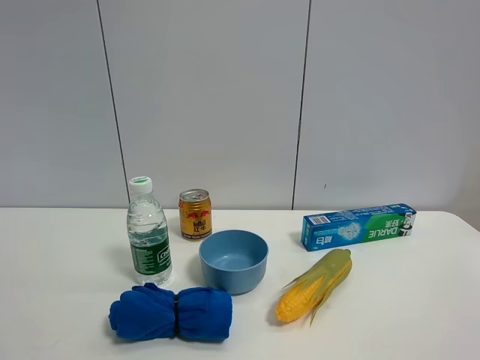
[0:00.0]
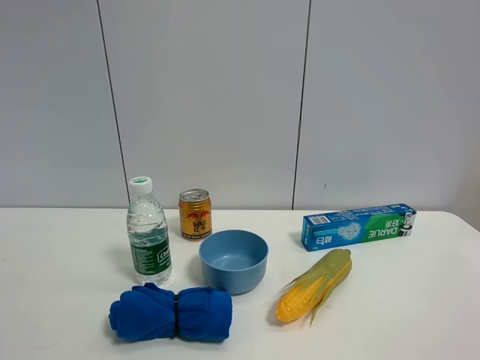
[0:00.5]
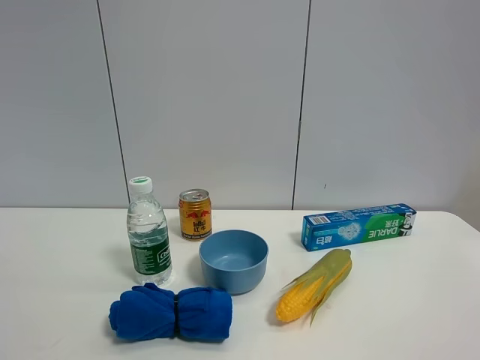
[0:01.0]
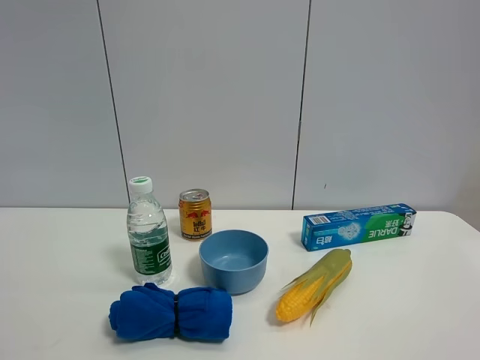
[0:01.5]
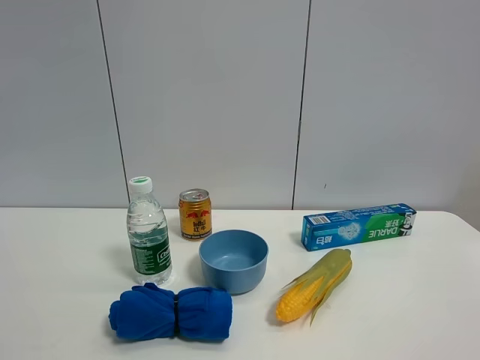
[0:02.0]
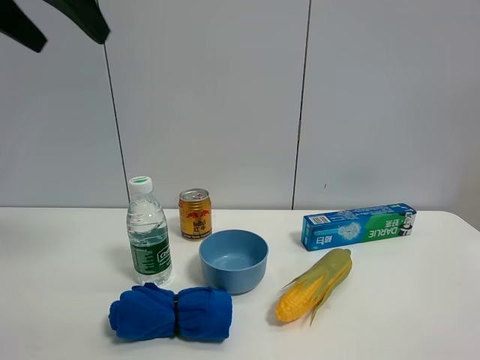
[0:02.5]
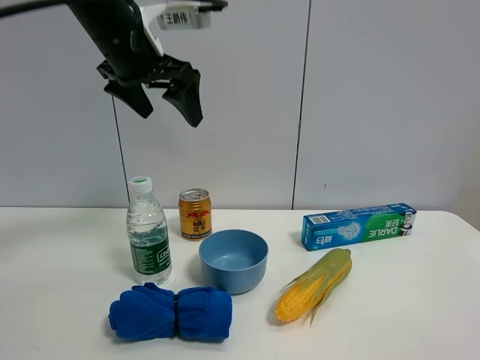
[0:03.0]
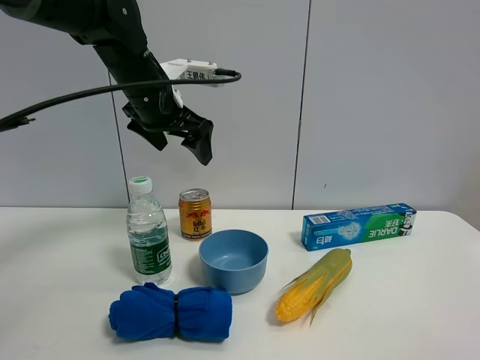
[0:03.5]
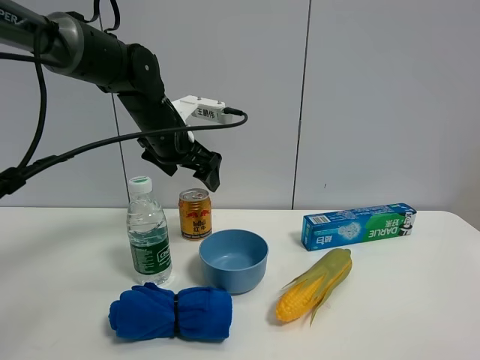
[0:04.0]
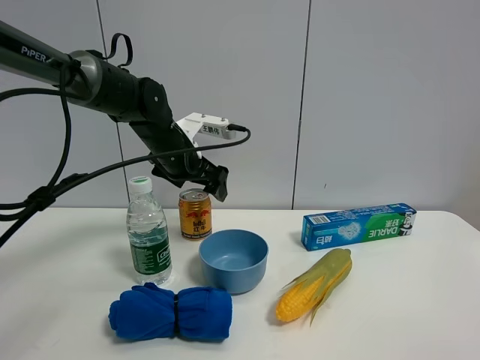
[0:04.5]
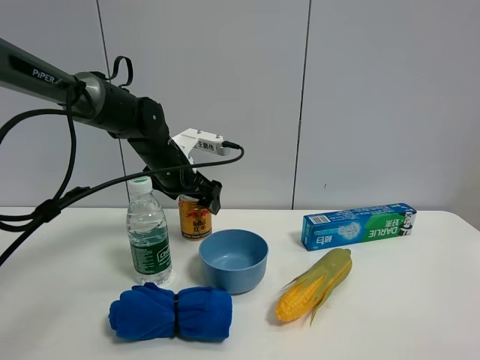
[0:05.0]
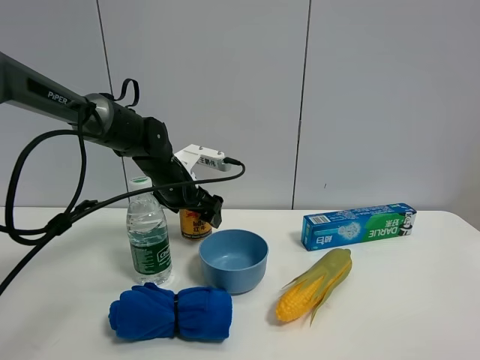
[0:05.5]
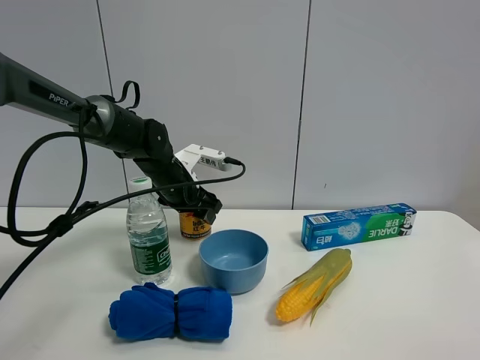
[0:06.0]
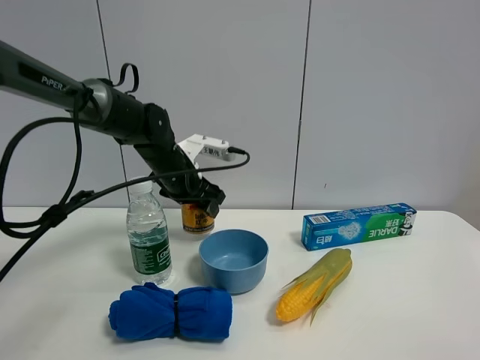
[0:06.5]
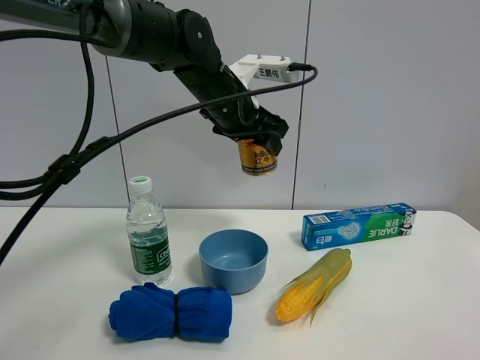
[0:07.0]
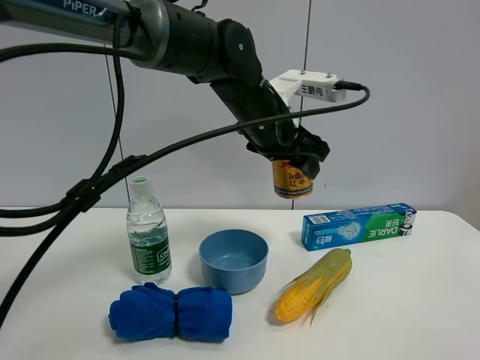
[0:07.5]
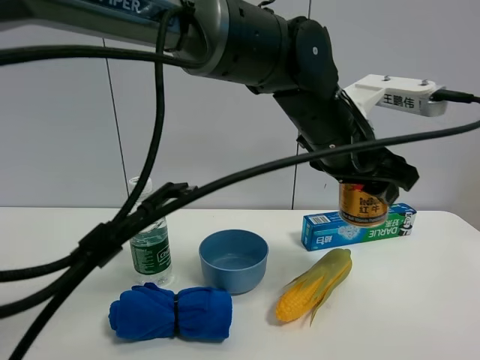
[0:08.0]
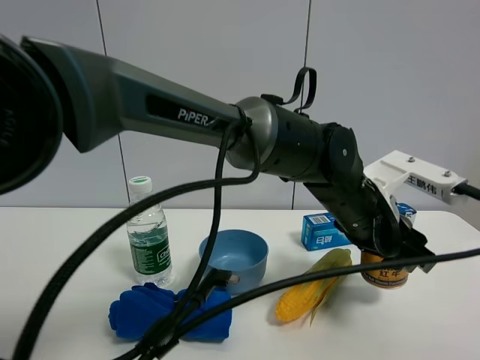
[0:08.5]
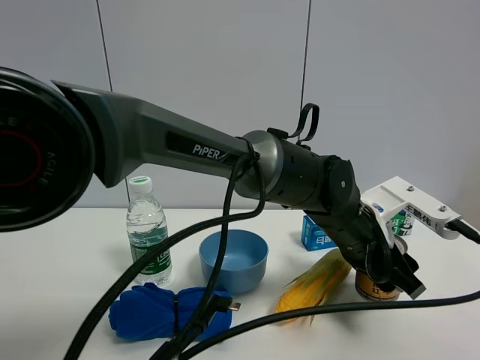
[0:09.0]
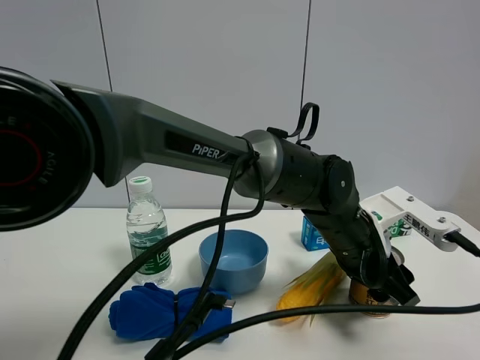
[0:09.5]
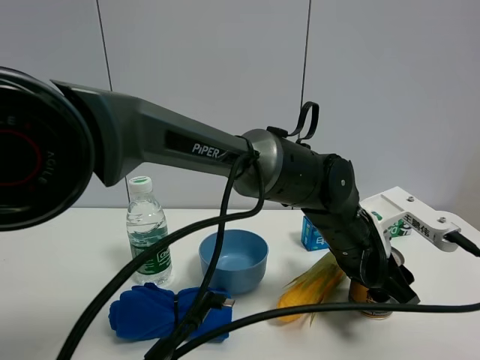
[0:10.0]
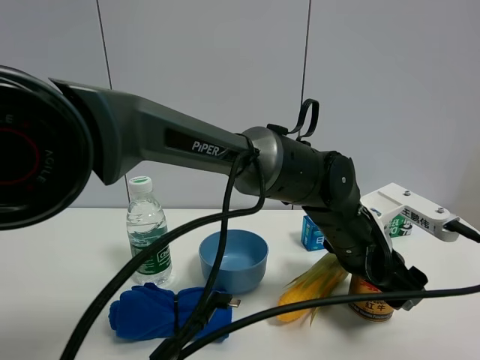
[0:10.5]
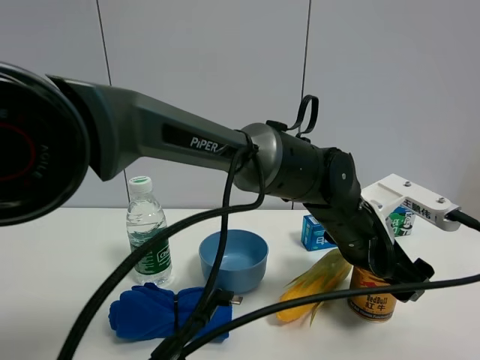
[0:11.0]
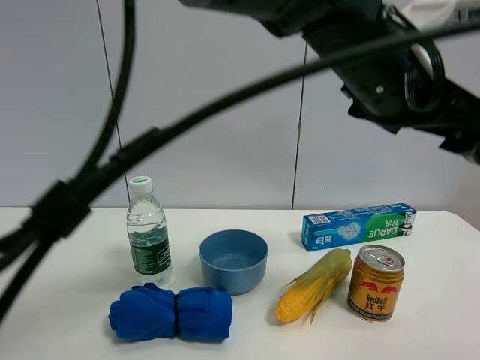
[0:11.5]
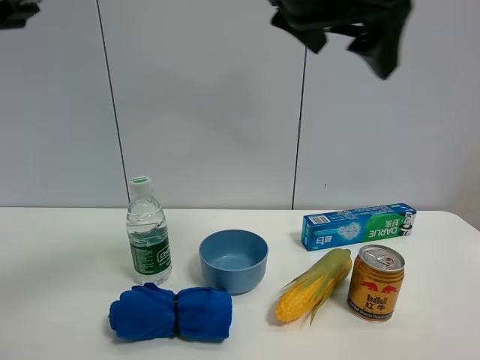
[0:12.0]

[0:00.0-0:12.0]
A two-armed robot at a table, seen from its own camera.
Task of the whole recording: the gripper move the object.
Step, 0:00.0 to 0:06.0: Grasp the Jia Duo Bao with the left gripper.
Step, 0:06.5 to 0:10.5: Place the Jia Duo Bao on the table with the left gripper.
0:02.0 to 0:04.0: The left gripper goes roughly 40 cm forward, downward and to the right.
0:04.0 to 0:06.0: The left gripper is displaced downward by approximately 10 cm, and closes up.
0:06.0 to 0:08.0: The left gripper is displaced to the right, backward and upward by about 30 cm.
0:08.0 to 0:10.0: The left gripper moves downward, some 10 cm.
0:10.0 to 0:12.0: The left gripper moves upward, approximately 30 cm, and opens.

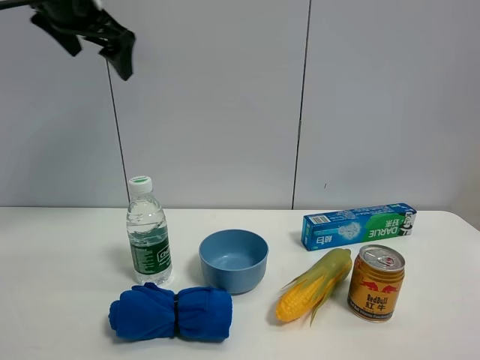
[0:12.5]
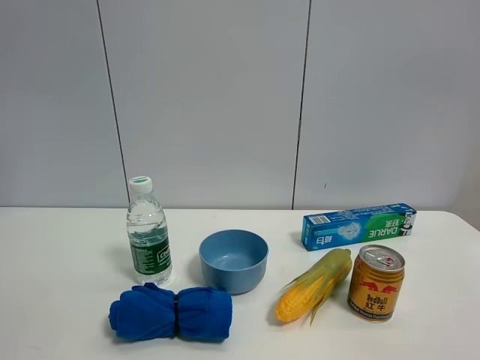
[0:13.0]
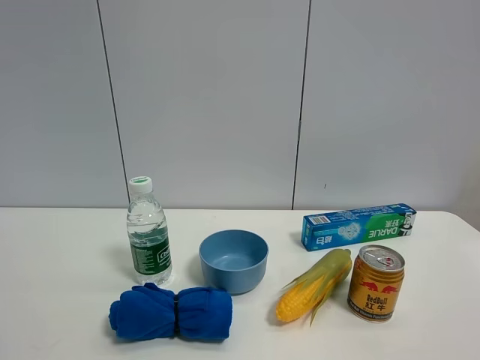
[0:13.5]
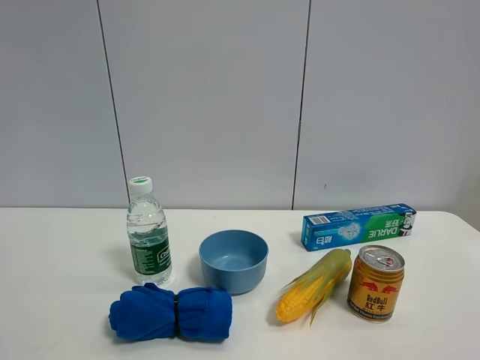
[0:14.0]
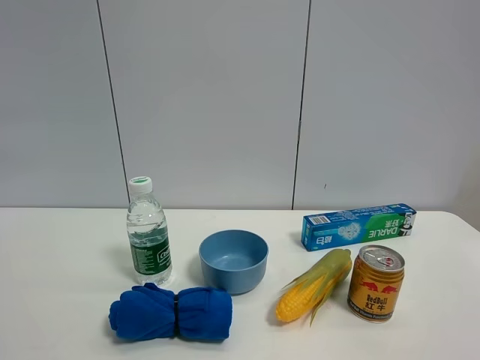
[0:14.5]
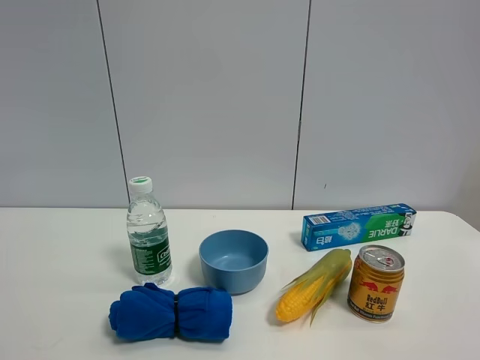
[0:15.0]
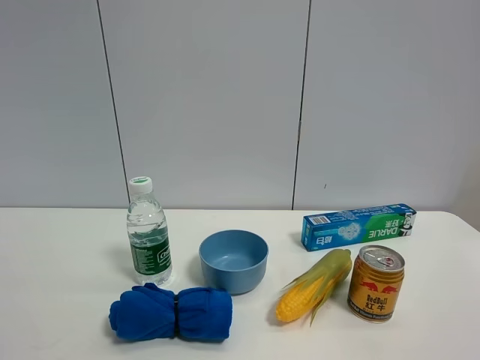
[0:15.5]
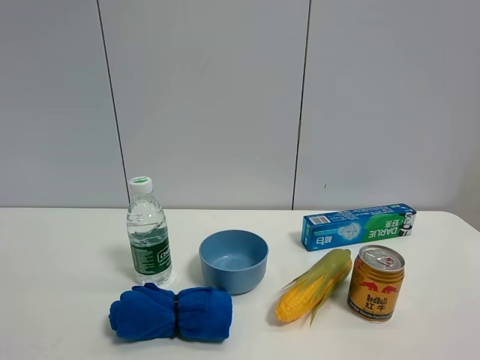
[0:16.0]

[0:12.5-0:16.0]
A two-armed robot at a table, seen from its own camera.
Task of the whole recording: the gripper move the object.
0:12.5 to 0:14.5: The left gripper shifts approximately 35 cm backward.

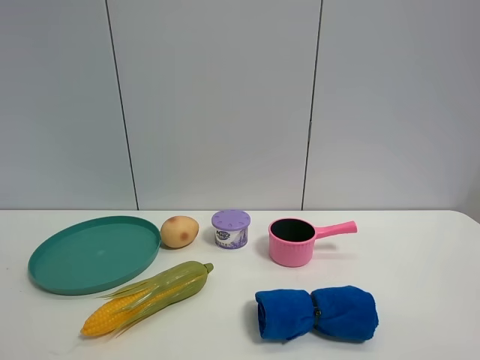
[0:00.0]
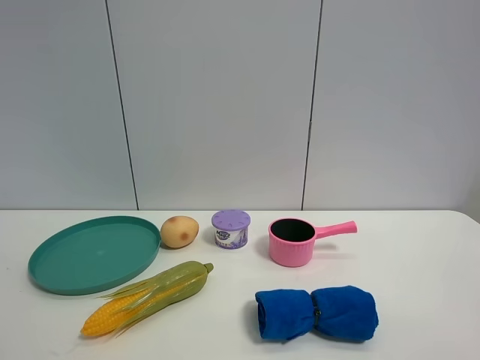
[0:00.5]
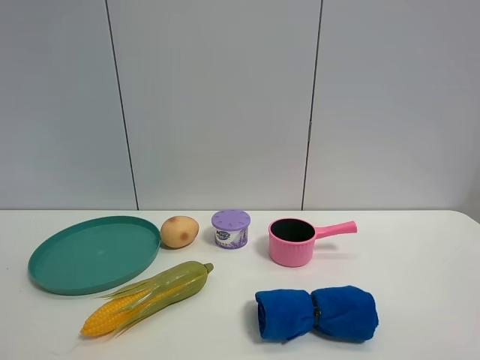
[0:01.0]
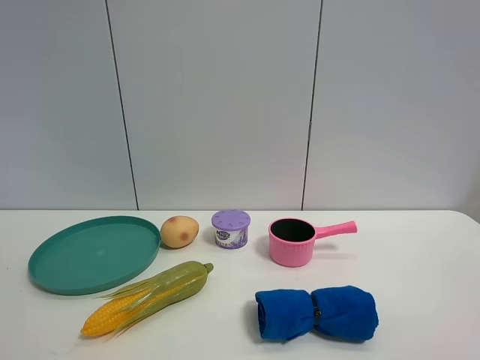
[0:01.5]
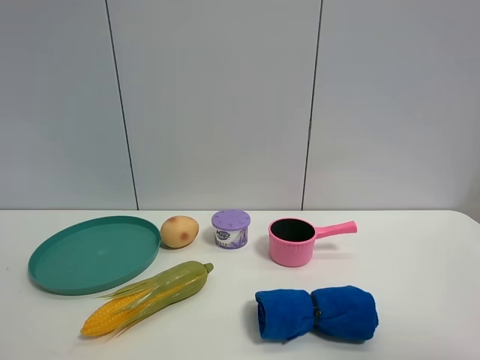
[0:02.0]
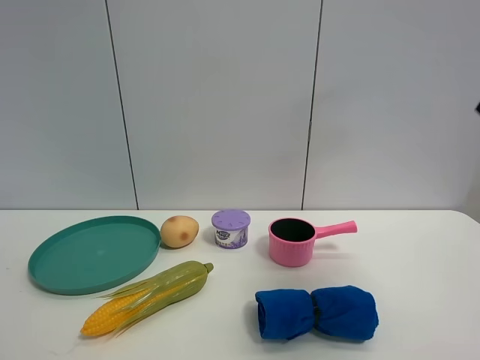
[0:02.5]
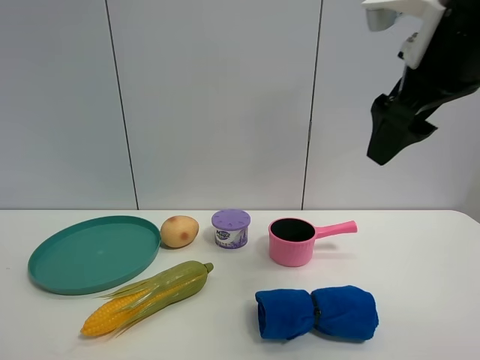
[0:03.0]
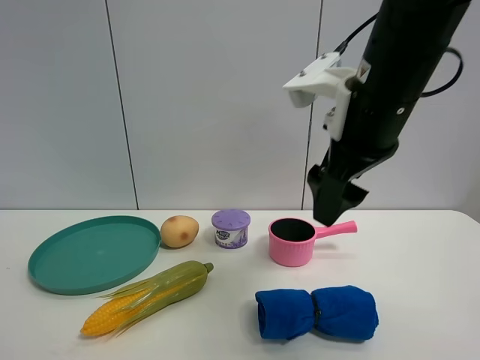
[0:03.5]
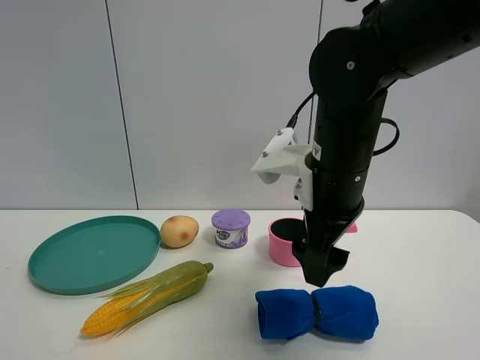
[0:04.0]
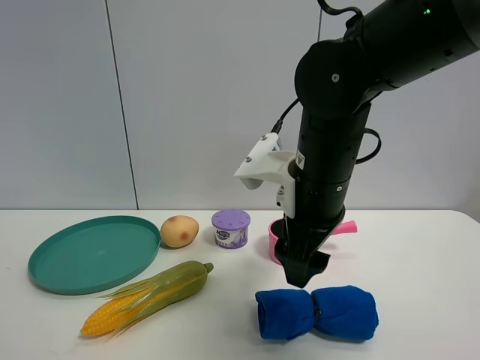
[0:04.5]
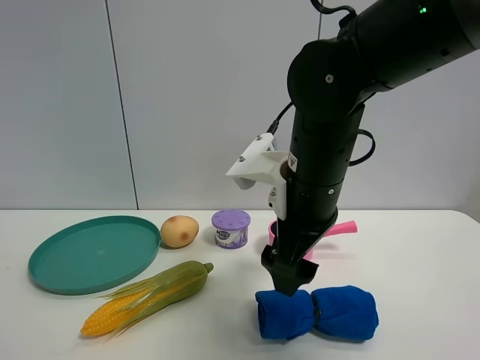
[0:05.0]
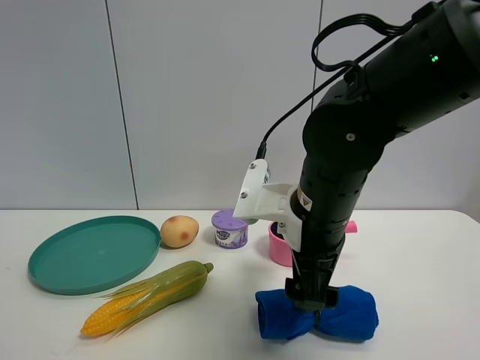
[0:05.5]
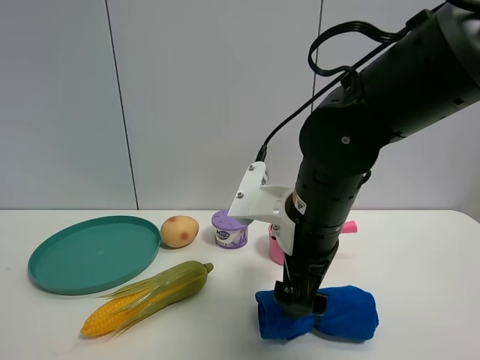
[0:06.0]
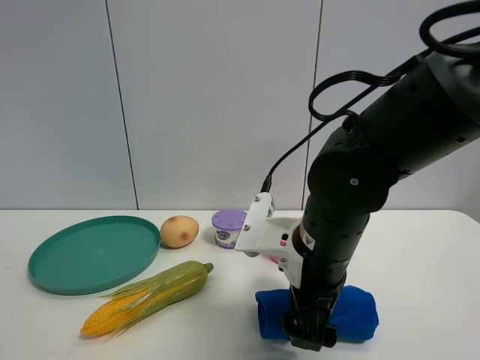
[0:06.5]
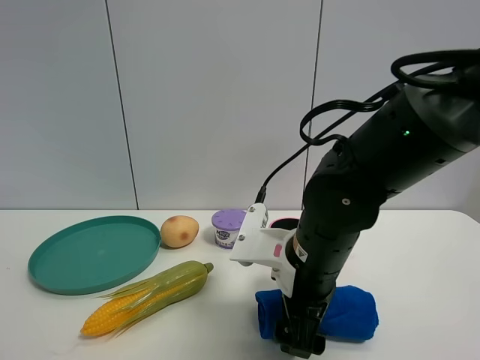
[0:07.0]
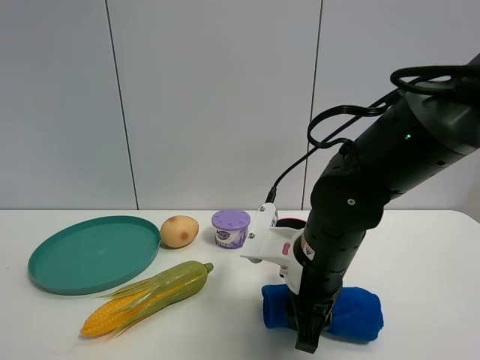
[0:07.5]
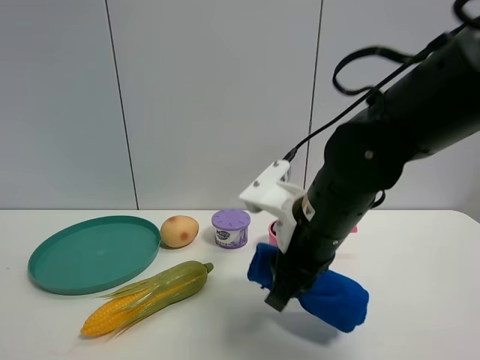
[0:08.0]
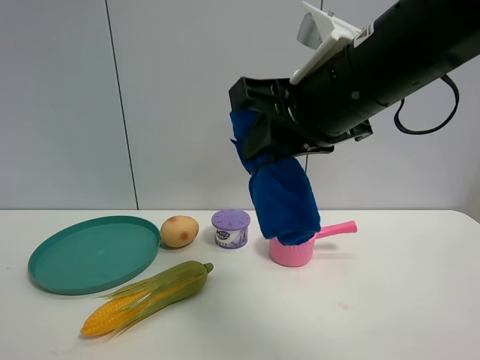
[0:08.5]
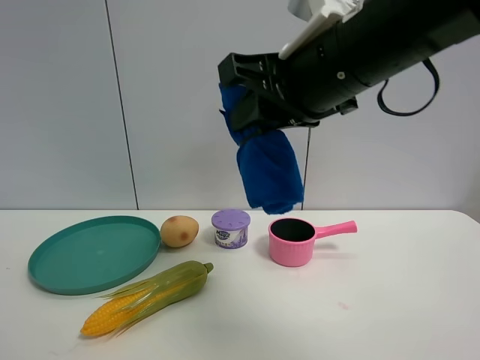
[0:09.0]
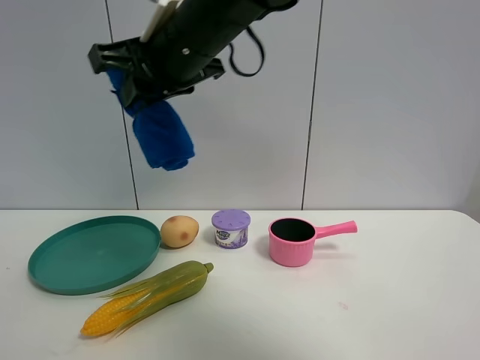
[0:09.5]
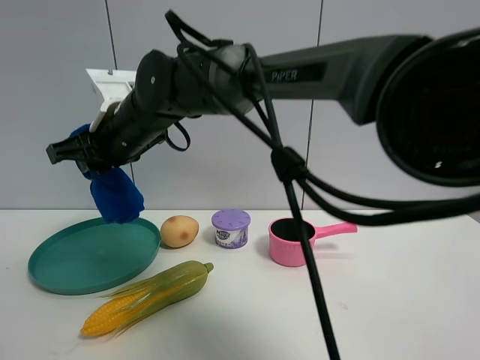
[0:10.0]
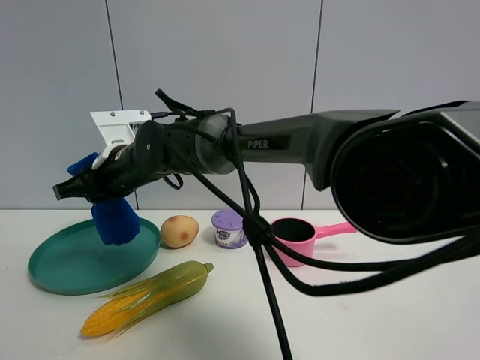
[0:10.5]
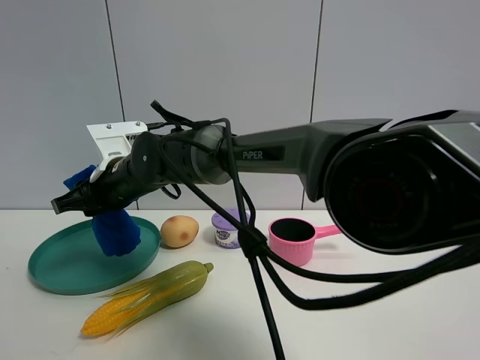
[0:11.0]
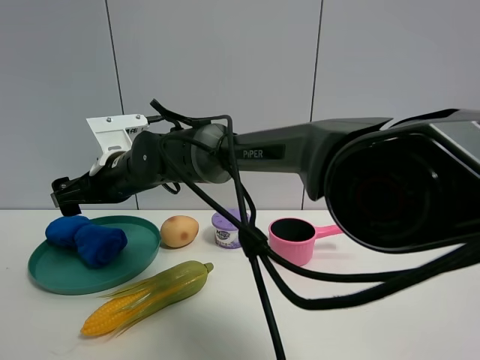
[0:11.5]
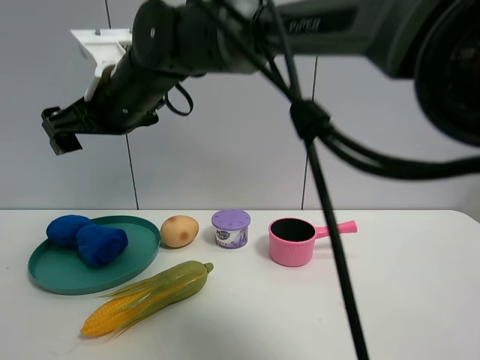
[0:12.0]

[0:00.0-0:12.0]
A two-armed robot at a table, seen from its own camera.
Task of the whole recording: the gripper move the object.
Step, 0:00.0 to 0:07.5: Grasp the blue towel with the right gripper.
0:02.0 to 0:04.0: The right gripper heads forward, to the left and downward, covering some 35 cm.
0:04.0 to 0:06.0: The grippers make only small movements.
0:06.0 to 0:08.0: The right gripper closes its fingers.
0:08.0 to 0:10.0: The right gripper is displaced to the left and forward by approximately 25 cm.
0:10.0 to 0:12.0: The right gripper opens.
